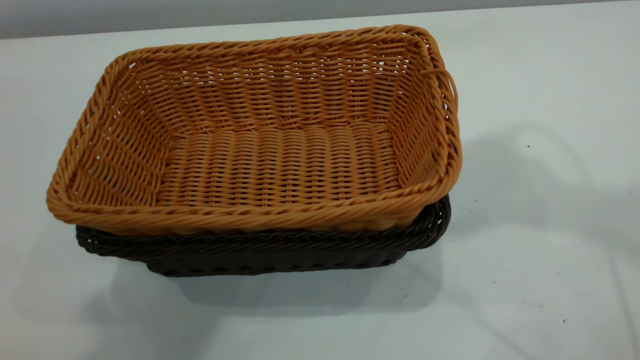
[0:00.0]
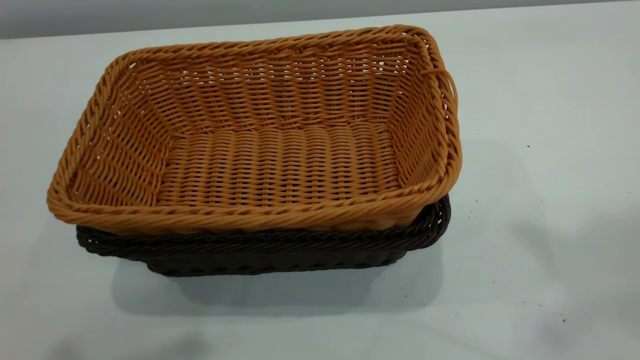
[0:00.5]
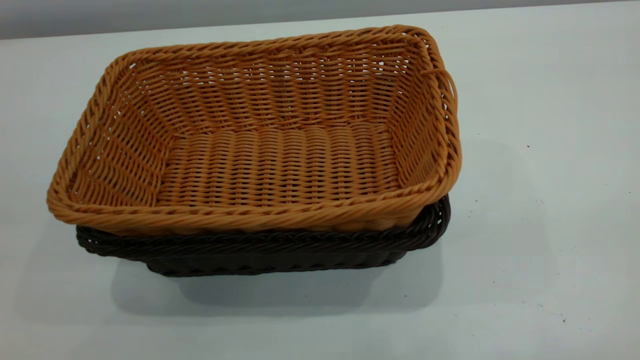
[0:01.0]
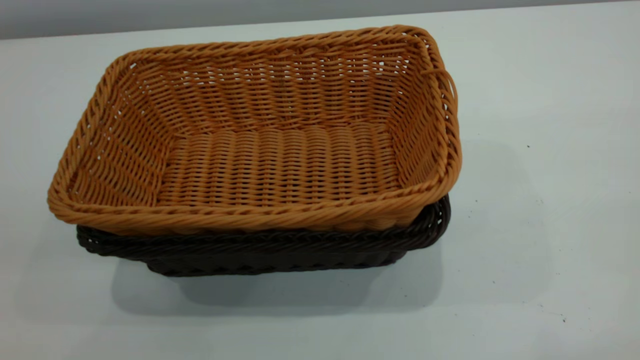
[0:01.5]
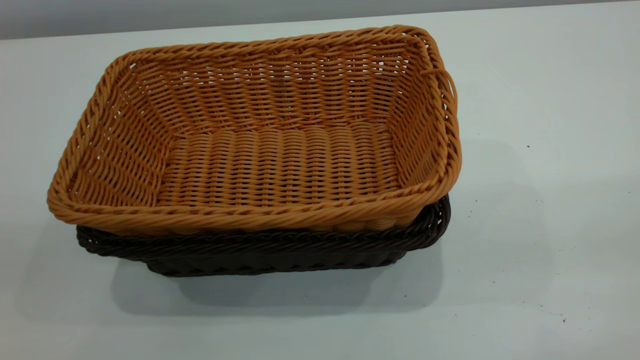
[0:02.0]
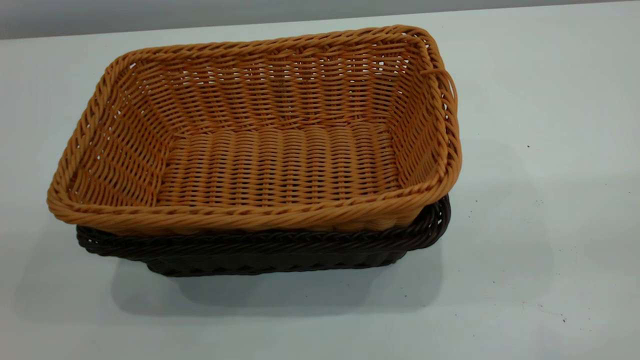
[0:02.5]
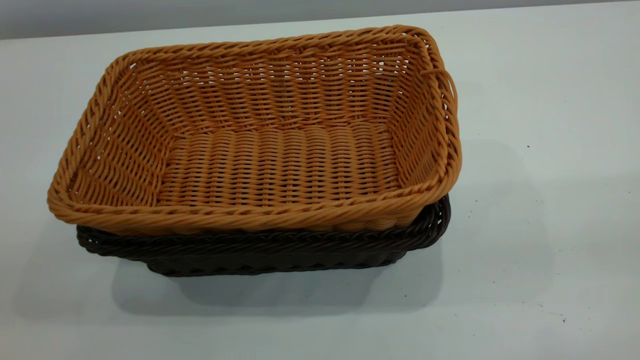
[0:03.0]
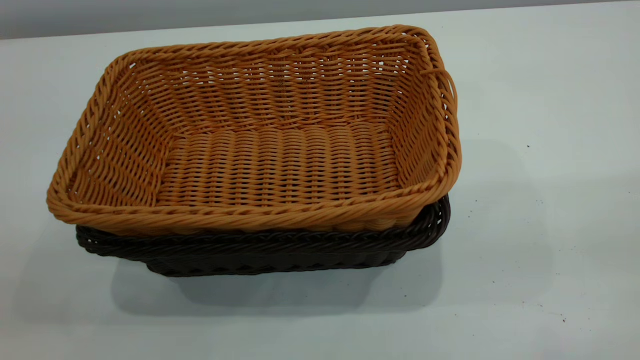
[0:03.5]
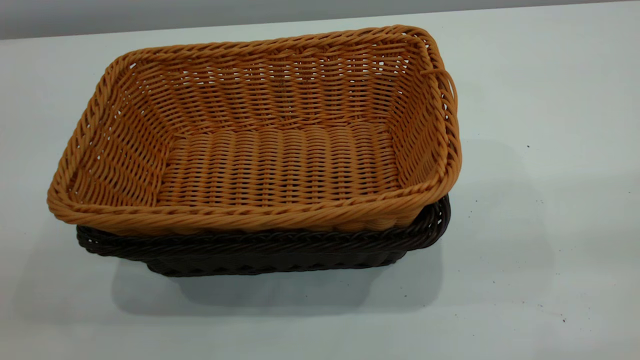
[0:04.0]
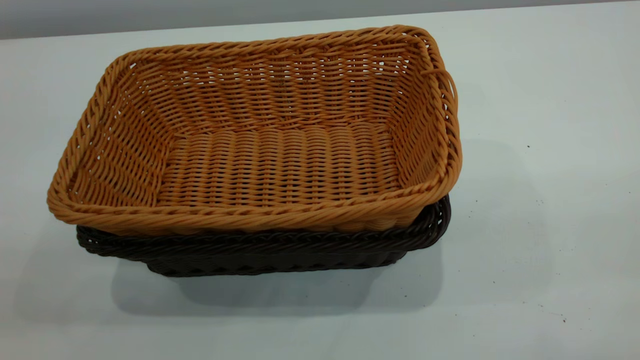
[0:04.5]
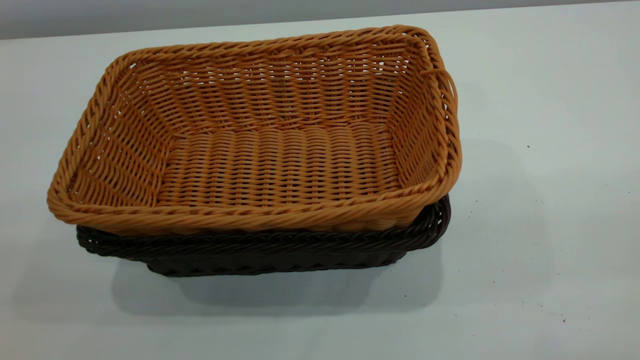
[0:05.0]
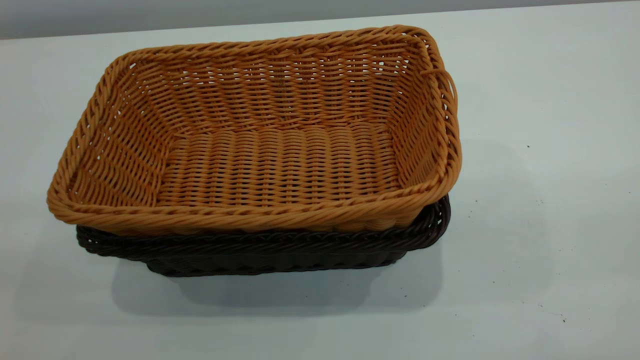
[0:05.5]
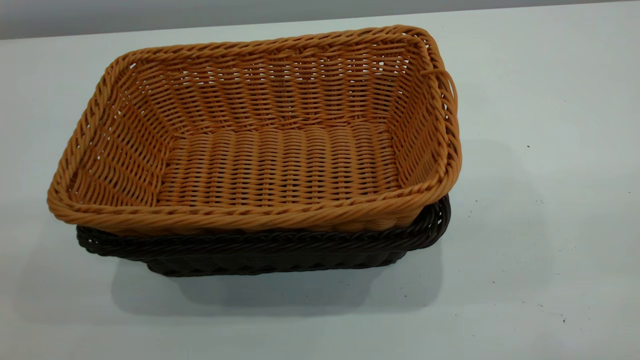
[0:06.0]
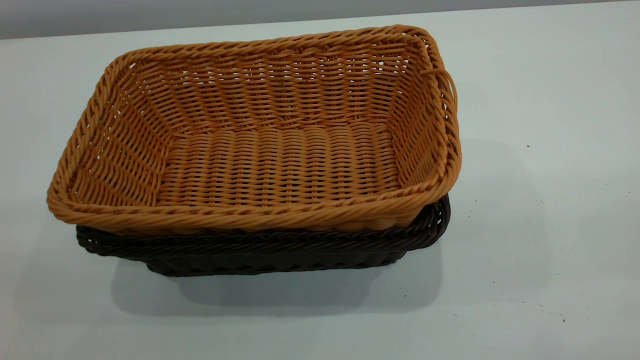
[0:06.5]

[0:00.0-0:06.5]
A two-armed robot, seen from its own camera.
Task of the whole recording: the left gripper grasp the black basket and place it in the center of the table, the right gripper grasp the brown basket and place it inside the black one.
0:00.0 to 0:02.0: The left gripper heads downward, backward and to the left, covering roughly 15 cm, and closes.
